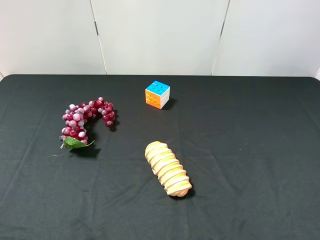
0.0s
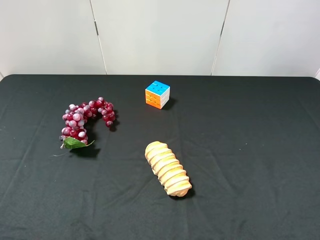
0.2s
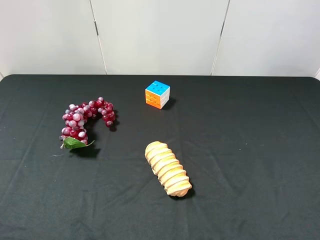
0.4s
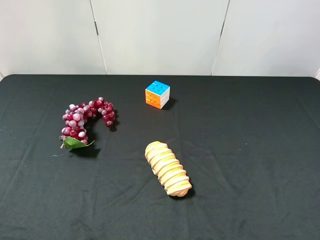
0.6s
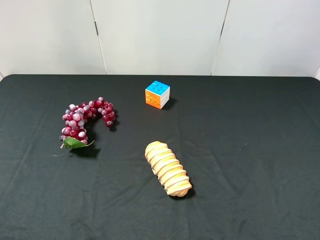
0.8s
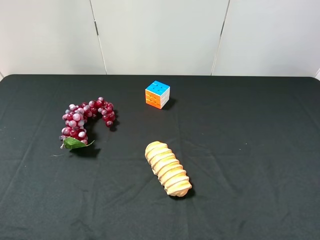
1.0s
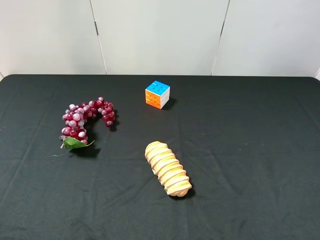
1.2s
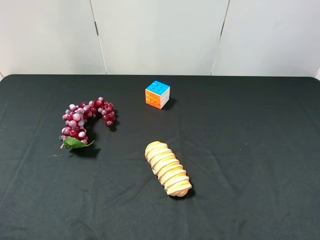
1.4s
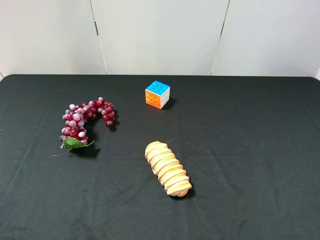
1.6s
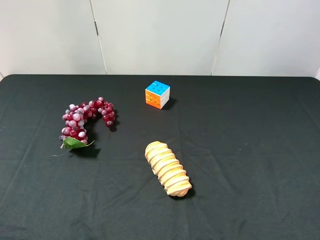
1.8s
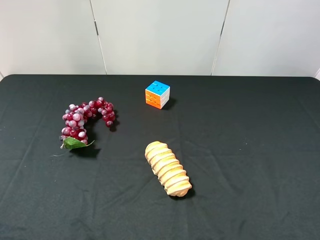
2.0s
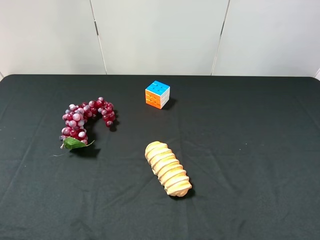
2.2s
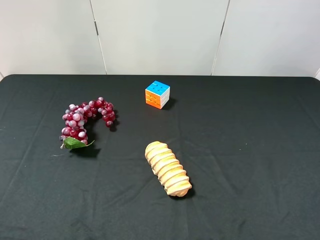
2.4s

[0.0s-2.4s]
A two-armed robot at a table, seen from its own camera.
Task of the whole recording: use the right gripper to pick up the item and transfer it from the right gripper to the left gripper.
1.2s to 2.4s: The two grippers keep their place.

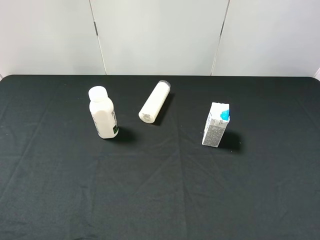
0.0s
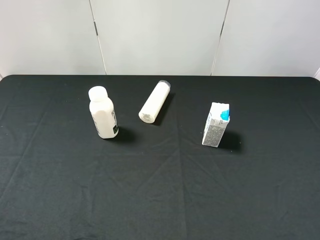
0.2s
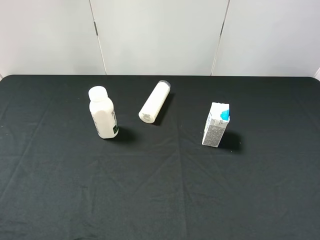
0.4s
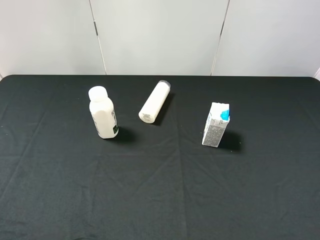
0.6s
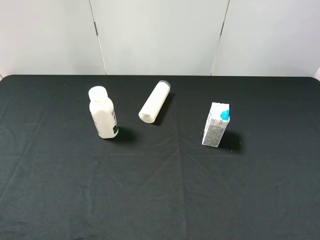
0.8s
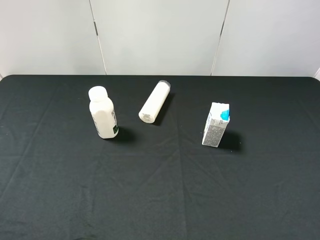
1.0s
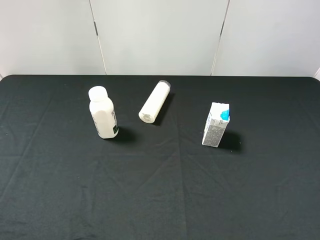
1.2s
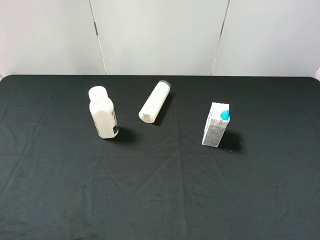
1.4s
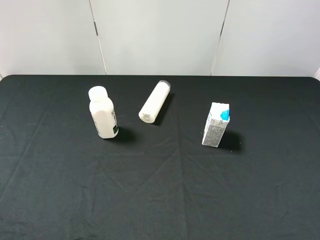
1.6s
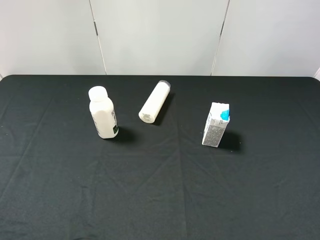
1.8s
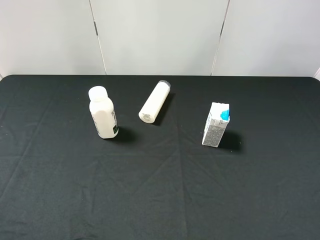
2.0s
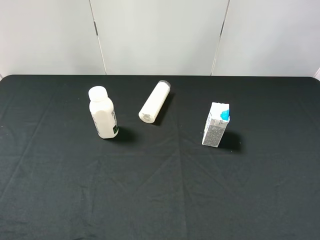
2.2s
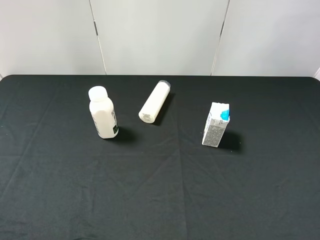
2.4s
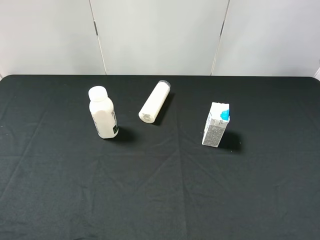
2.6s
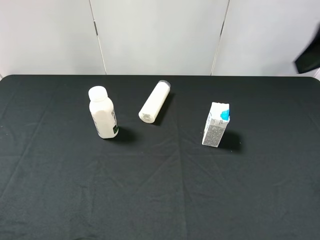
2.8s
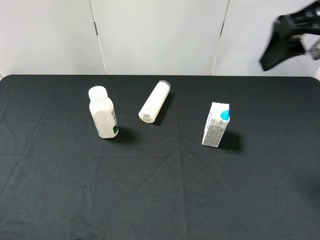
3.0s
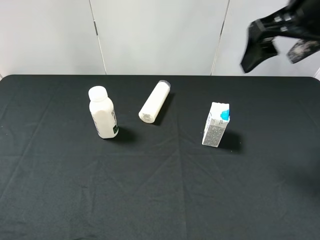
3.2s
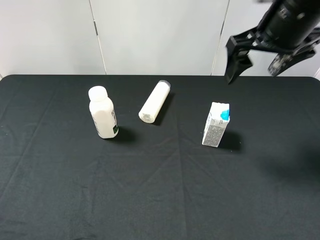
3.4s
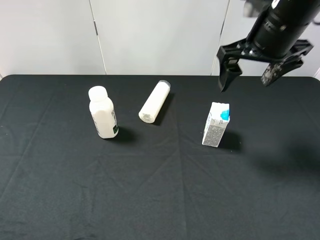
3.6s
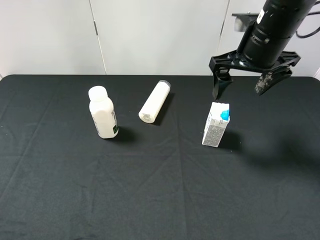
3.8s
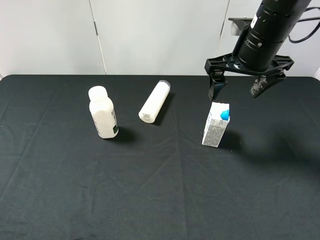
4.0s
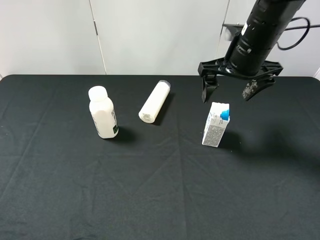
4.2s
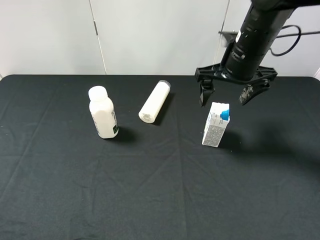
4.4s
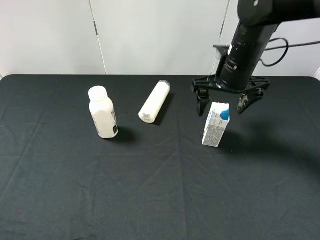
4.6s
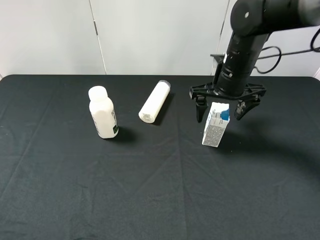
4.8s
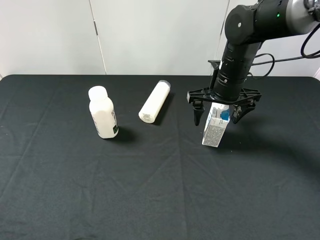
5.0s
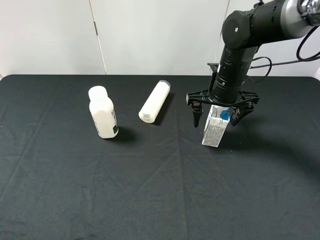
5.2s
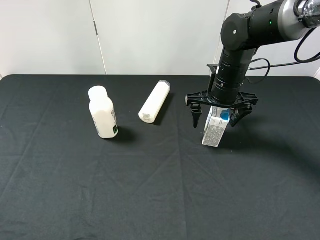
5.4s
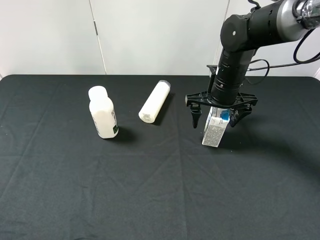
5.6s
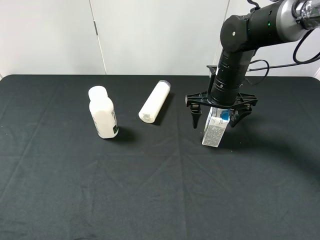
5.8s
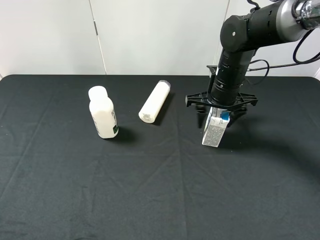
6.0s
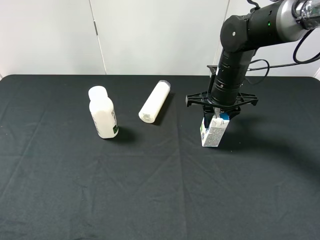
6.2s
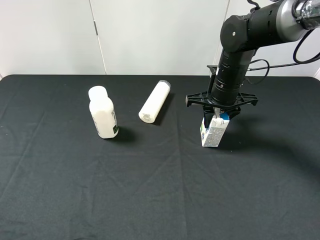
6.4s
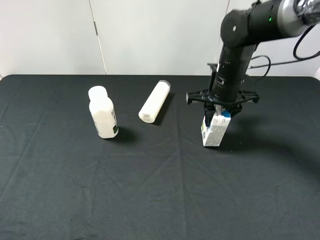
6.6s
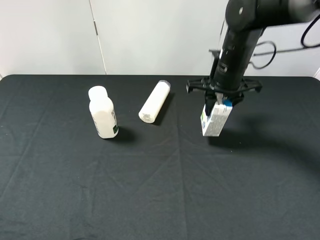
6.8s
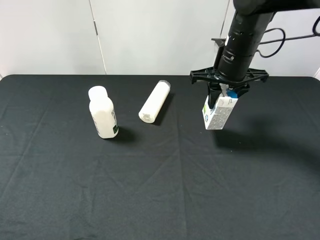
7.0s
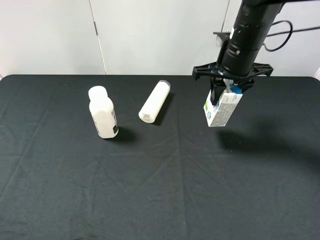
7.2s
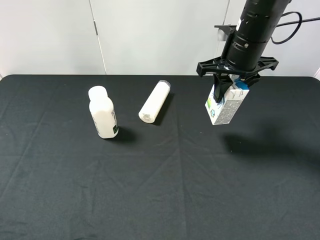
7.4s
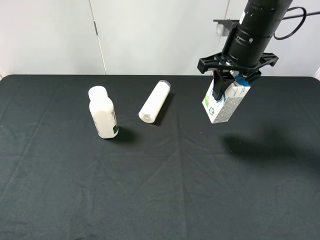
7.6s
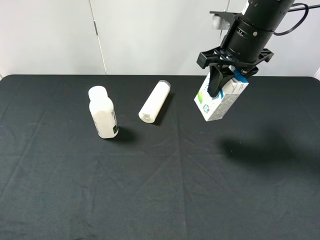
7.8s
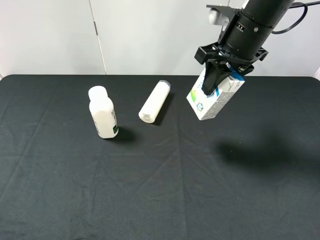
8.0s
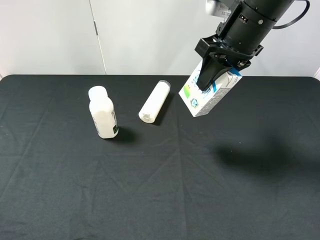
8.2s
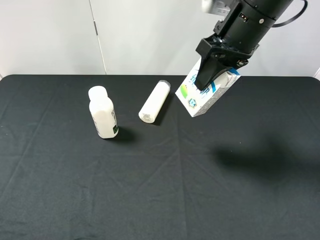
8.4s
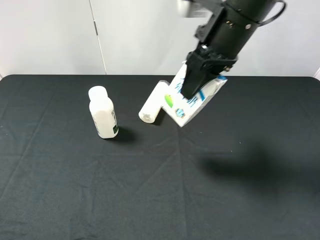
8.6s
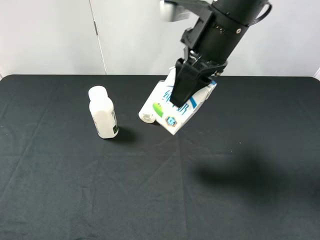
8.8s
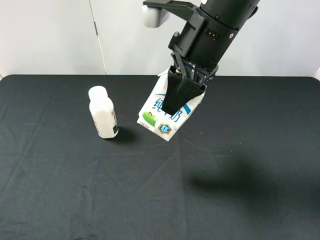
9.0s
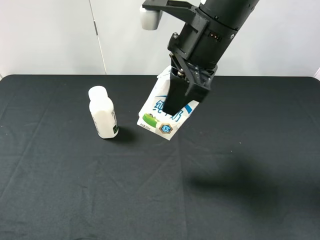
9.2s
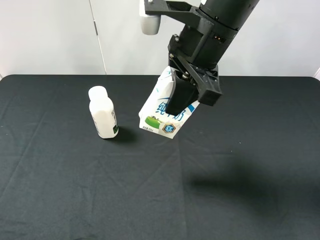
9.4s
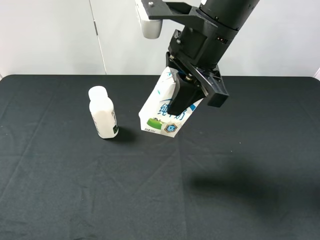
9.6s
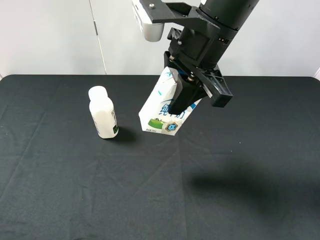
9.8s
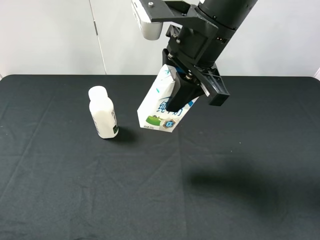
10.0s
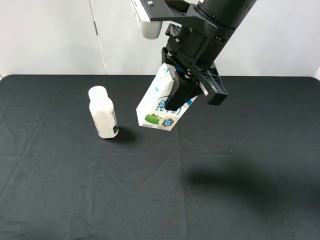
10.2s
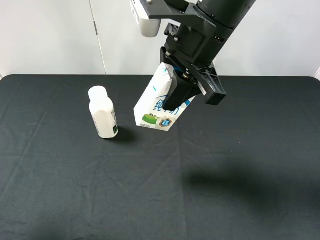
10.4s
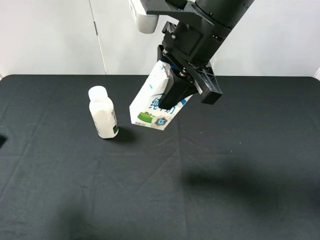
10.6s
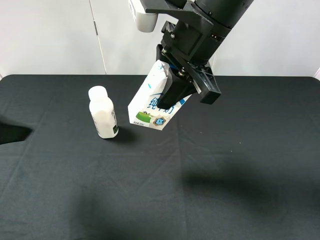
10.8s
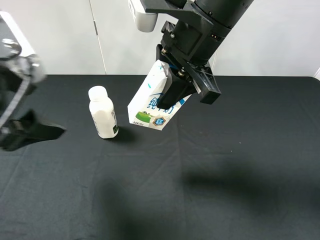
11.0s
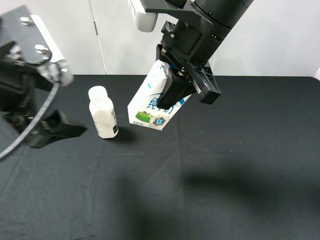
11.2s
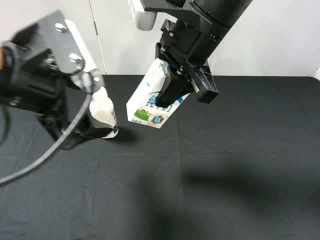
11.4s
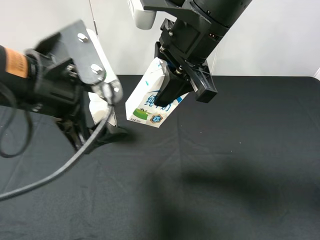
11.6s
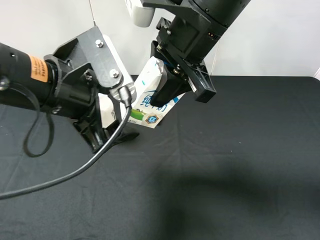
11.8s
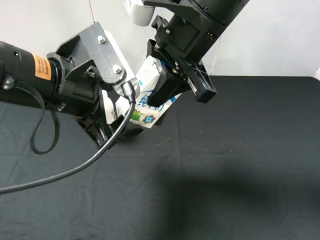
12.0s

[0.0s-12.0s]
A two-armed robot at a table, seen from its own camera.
Task of the whole recording: use the right gripper to pick up the item and transfer it from the right gripper to the left gripper.
Step, 0.0s to 6.2s: Use the right gripper to grab the milk on the right side of the table.
0.0s to 1.6s: The two grippers keep their place.
1.6s to 3.0s: The right gripper moves forward and to the left, roughly 25 cm.
3.0s to 4.4s: The right gripper travels downward, forward and to the left by about 15 cm.
4.4s to 6.0s: The right gripper travels downward by roughly 10 cm, and closes up.
6.0s to 7.6s: The right gripper goes roughly 10 cm upward, and closes.
7.6s to 9.0s: The right gripper is displaced to the left and backward by approximately 10 cm.
9.0s to 10.4s: The left gripper goes about 10 cm forward.
10.4s to 12.0s: The left gripper moves to the right and forward, roughly 20 cm.

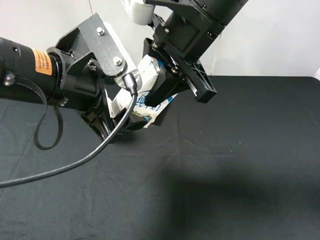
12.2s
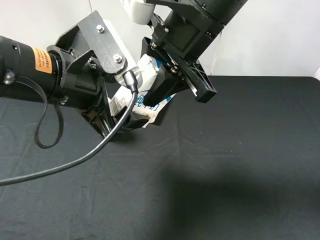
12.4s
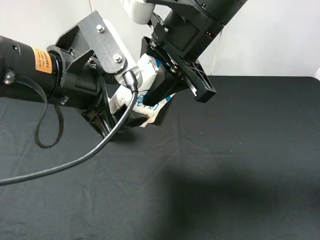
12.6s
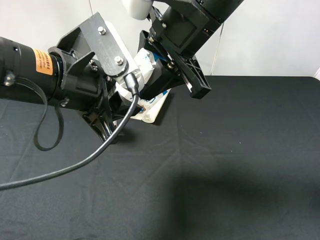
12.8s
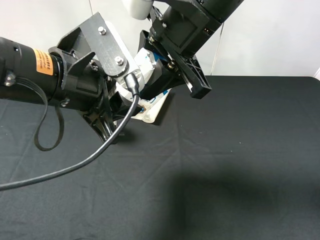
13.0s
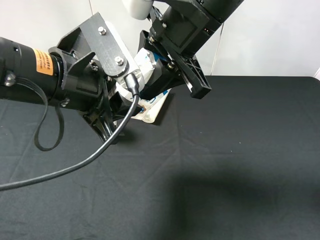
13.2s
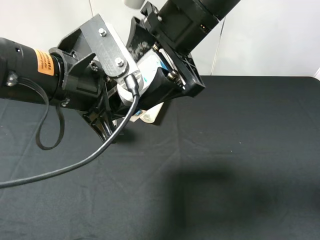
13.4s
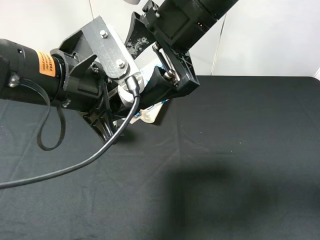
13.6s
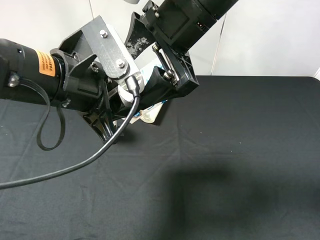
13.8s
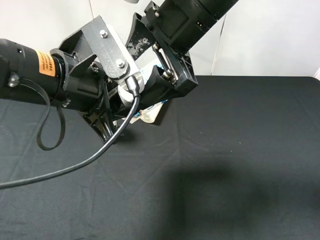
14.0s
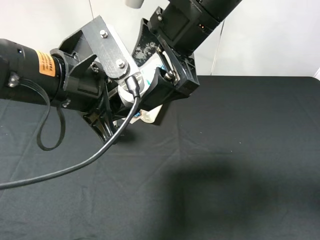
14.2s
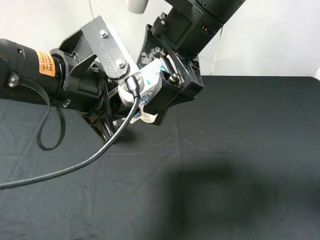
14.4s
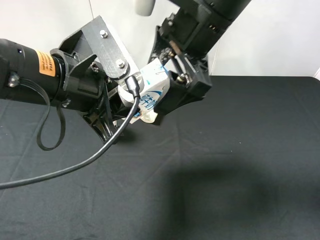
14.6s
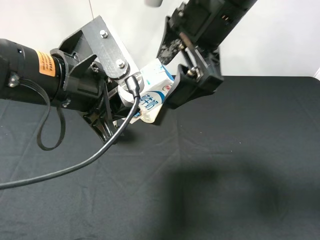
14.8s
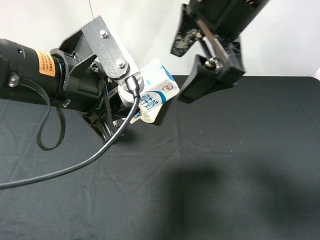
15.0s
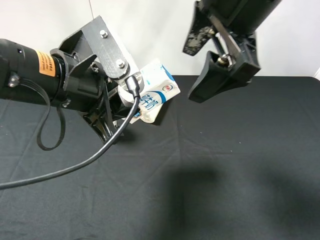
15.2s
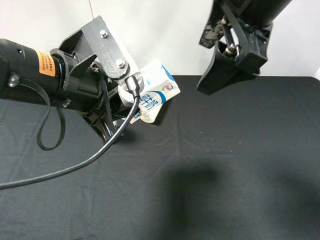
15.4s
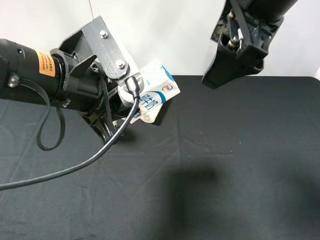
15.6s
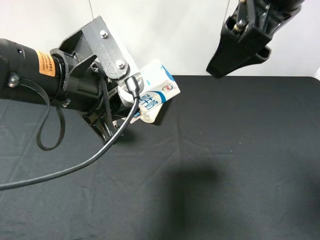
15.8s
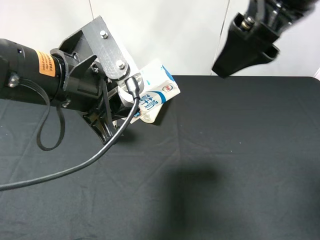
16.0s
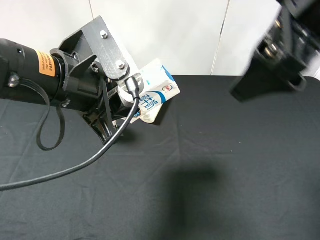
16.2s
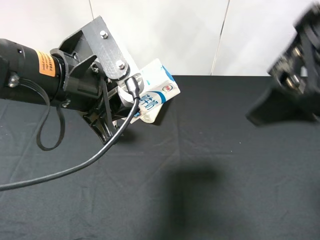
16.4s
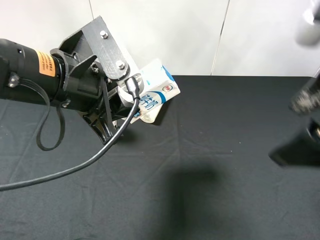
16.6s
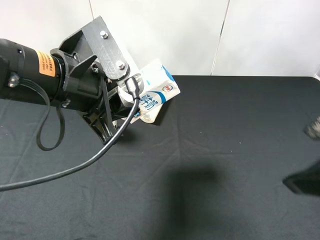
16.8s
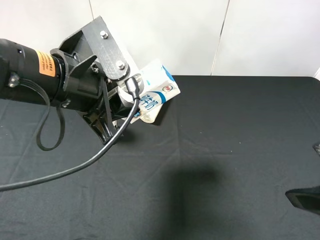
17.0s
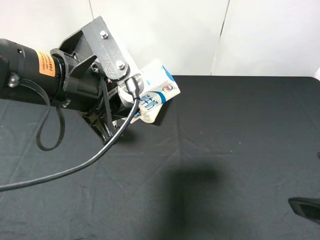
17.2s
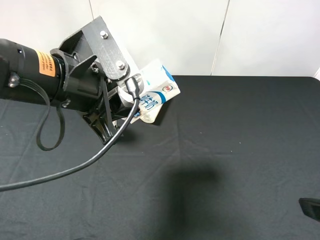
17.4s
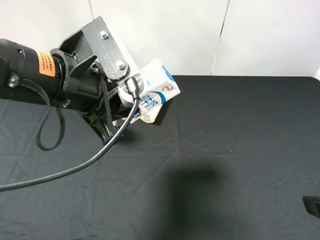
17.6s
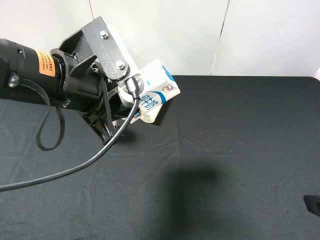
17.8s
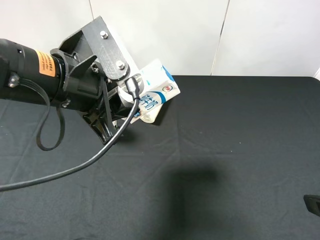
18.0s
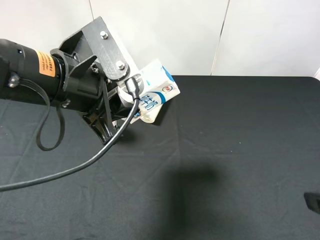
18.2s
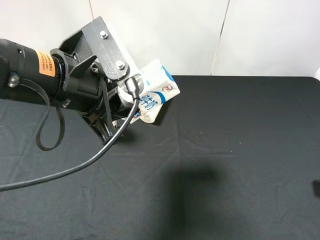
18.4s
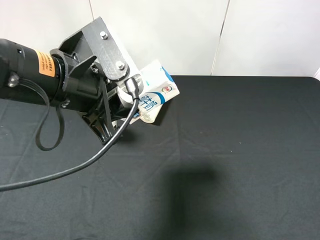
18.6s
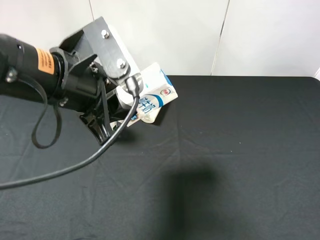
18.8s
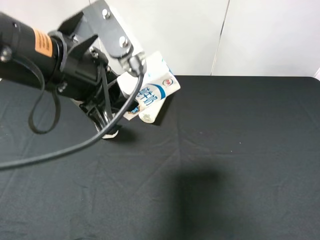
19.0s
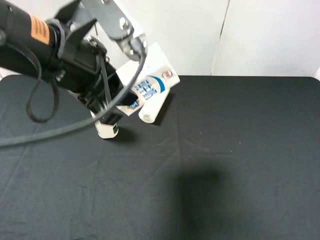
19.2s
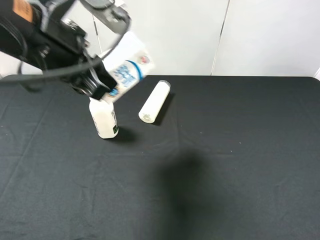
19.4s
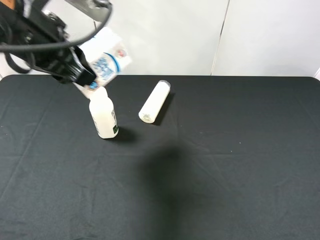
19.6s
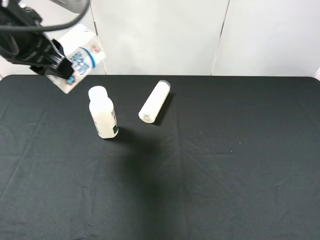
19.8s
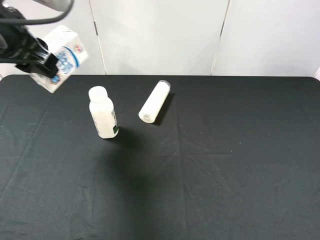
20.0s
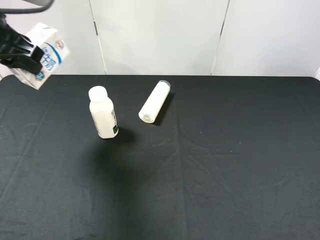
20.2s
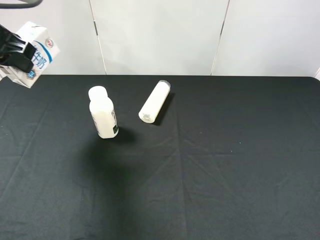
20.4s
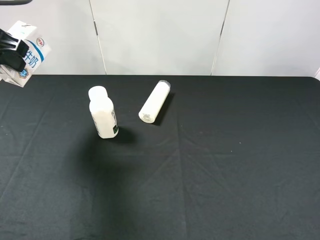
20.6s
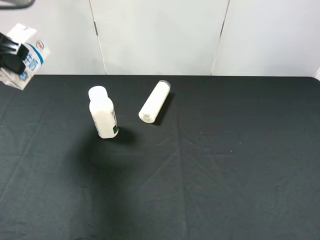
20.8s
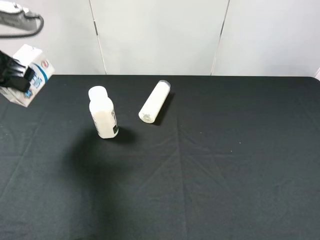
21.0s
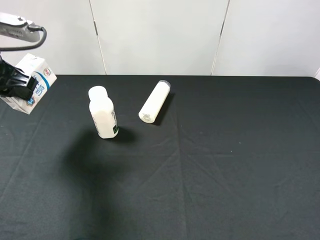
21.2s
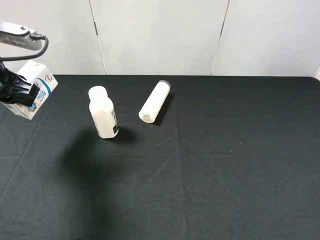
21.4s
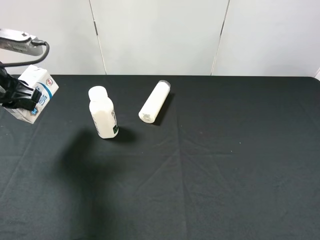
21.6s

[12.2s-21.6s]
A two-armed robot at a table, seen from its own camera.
Task of the whole recording: use the right gripper to pick up the item and transfer it from the right gripper to the left gripper.
12.2s to 13.8s: The right gripper opens its fingers, while the left gripper closes its fingers.
13.8s to 15.4s: The right gripper is displaced to the right by roughly 5 cm.
15.4s to 17.0s: The right gripper shifts some 25 cm backward, to the right and downward.
17.0s to 18.4s: The right gripper ends up roughly 5 cm from where it was.
18.4s to 20.0s: The left gripper heads to the left, forward and upward, covering roughly 15 cm.
20.0s to 21.6s: The left gripper is displaced downward and to the left by some 10 cm.
